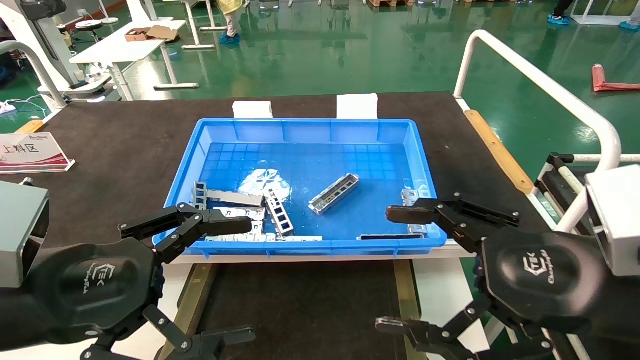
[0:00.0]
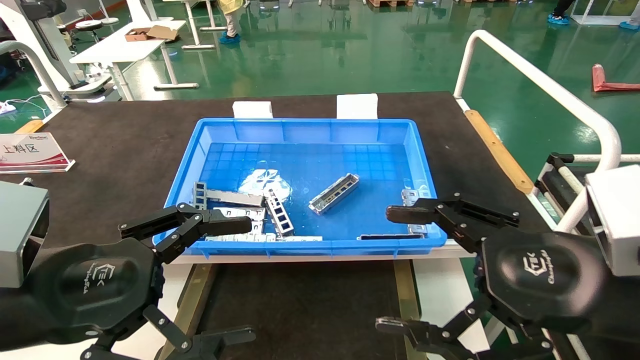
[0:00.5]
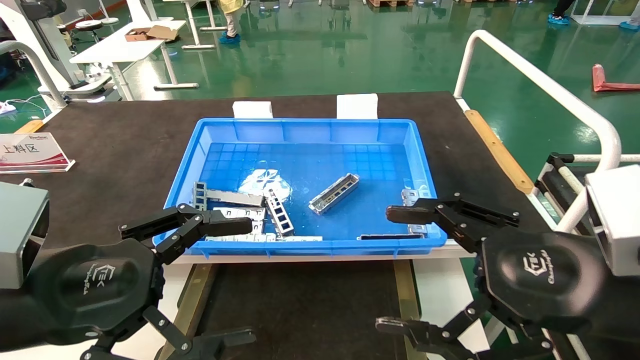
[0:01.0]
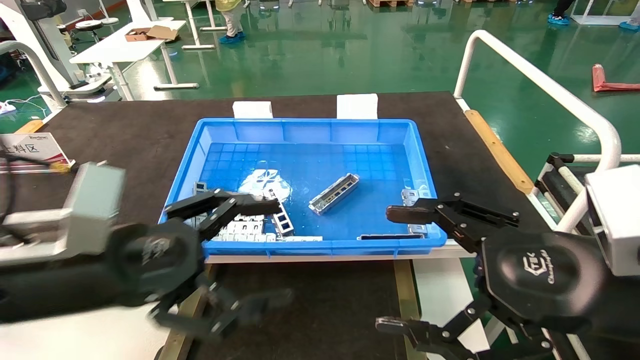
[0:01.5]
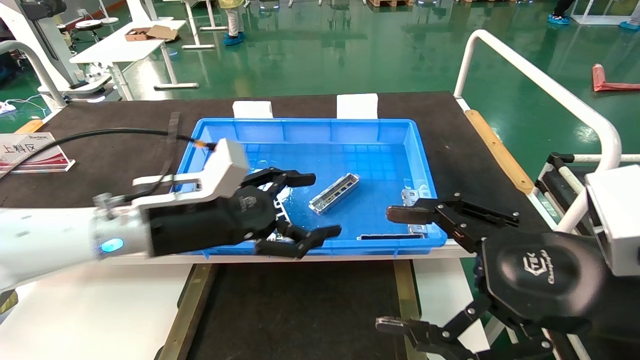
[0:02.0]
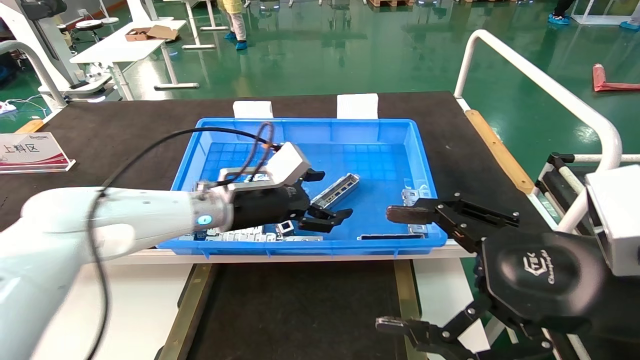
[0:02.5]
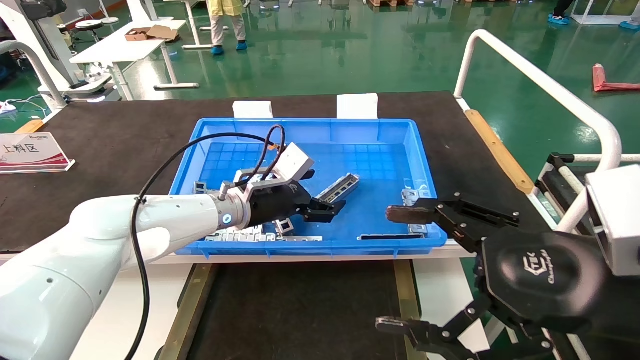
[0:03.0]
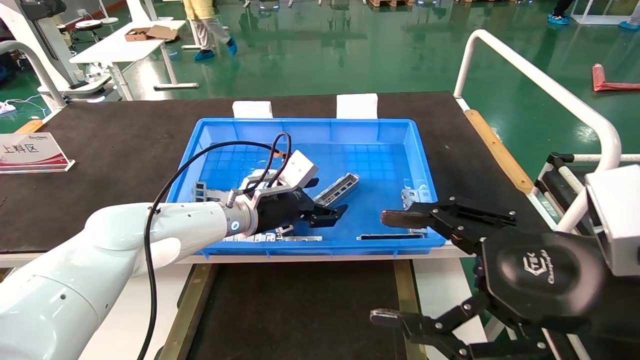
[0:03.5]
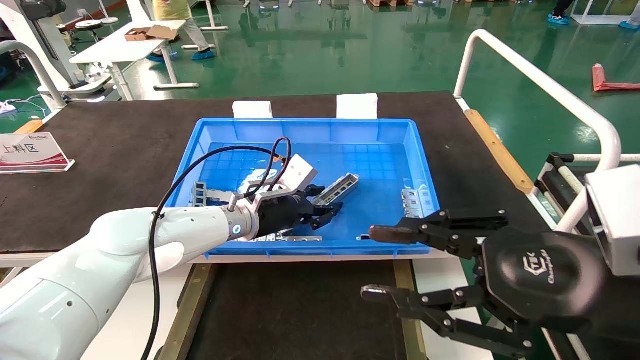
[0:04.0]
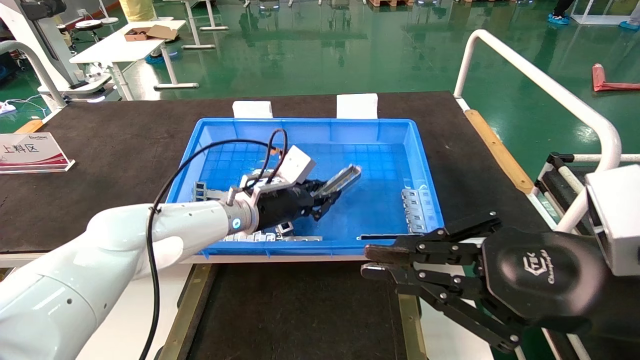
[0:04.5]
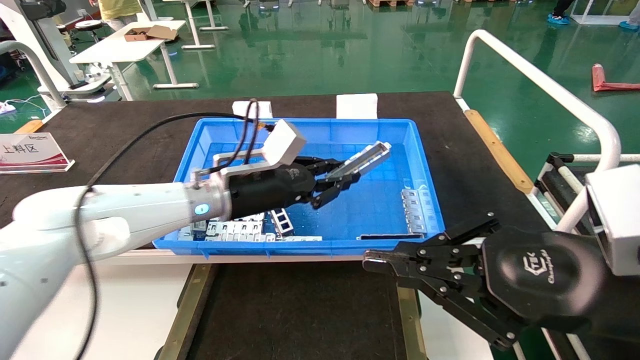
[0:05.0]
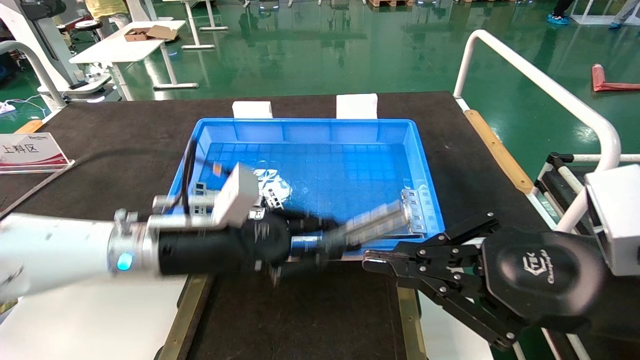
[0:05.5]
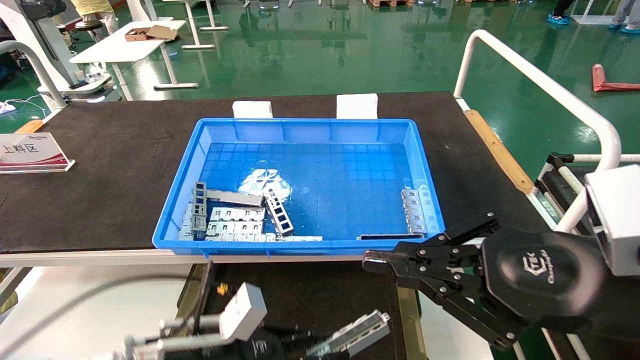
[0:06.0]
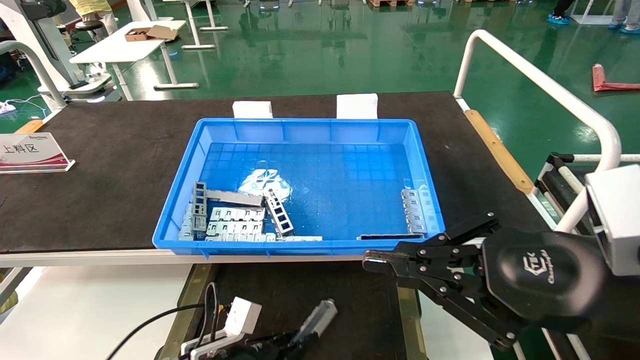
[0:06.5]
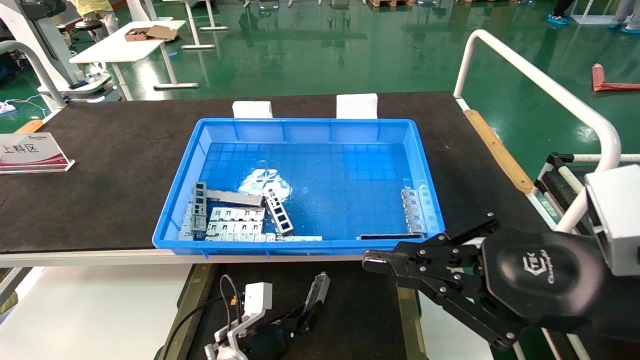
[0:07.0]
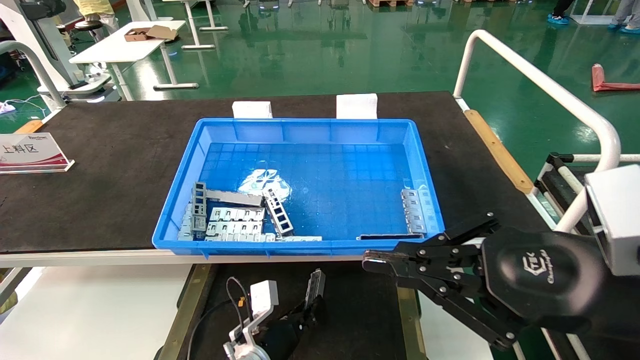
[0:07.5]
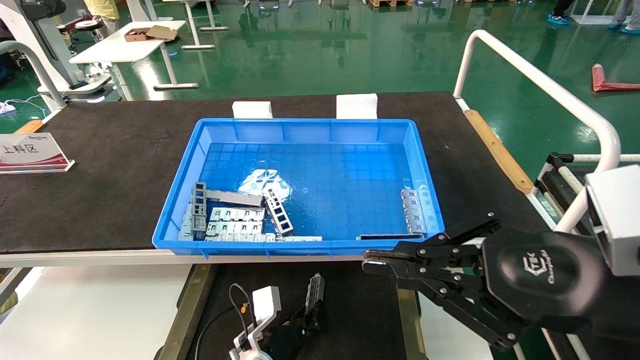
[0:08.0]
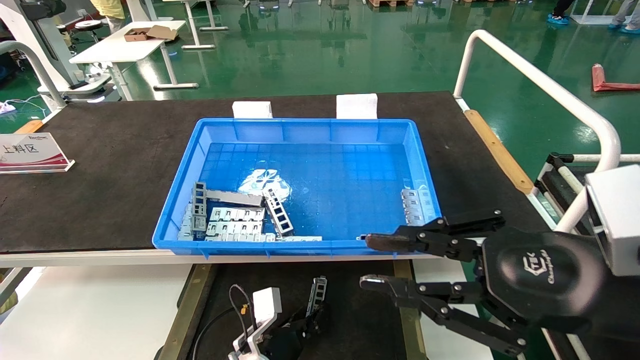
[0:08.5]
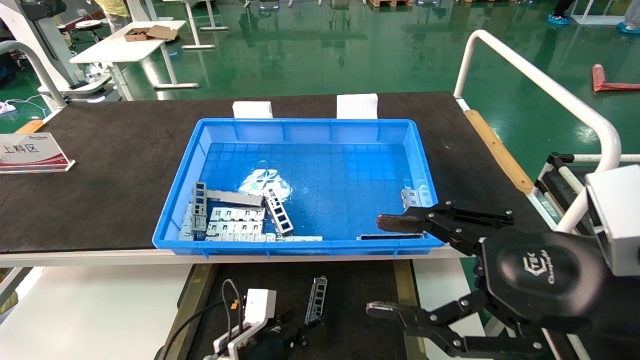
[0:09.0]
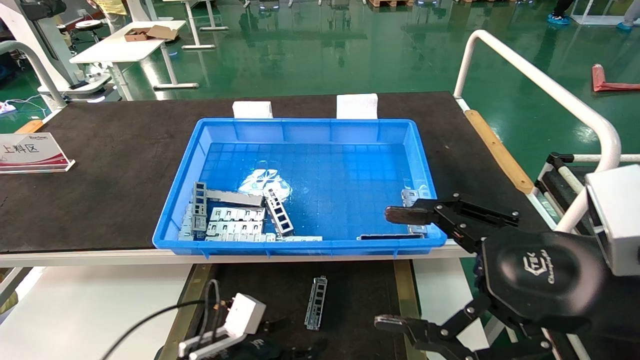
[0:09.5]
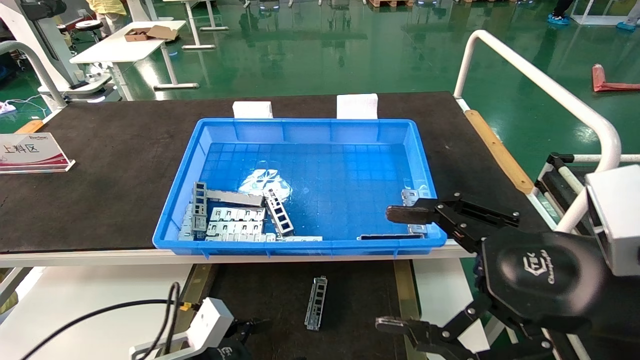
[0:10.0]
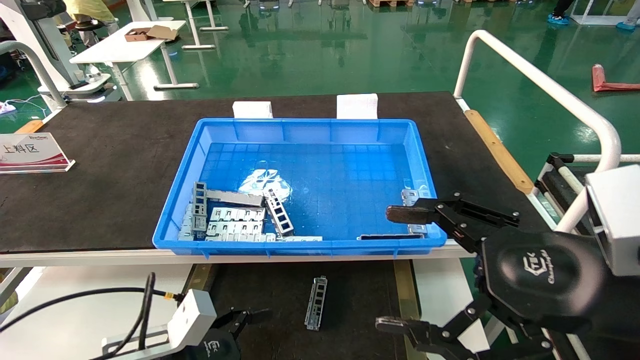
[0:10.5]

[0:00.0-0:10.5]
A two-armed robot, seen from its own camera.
Task of the whole recording: Grasp the part with one hand and place it on the black container.
Step, 0:01.5 to 0:05.0: Pick up the front USB bracket from the feeding area.
Step, 0:05.5 to 0:08.5: Place the front USB bracket into the box.
0:00.0 to 0:02.0: The left gripper shifts approximately 15 cm forward and to the right.
0:02.0 to 0:04.0: The right gripper closes. Meanwhile the left gripper heads forward, to the right and downward, covering approximately 15 cm, and closes up.
0:04.0 to 0:06.5: The right gripper closes its fingers, while the left gripper heads downward and backward, covering roughly 25 cm, and closes up.
0:06.5 to 0:08.5: The left gripper heads to the right, covering some 5 cm.
0:08.5 to 0:10.5: The left gripper shifts roughly 20 cm to the left, upward and backward, and opens up, while the right gripper opens its fingers.
